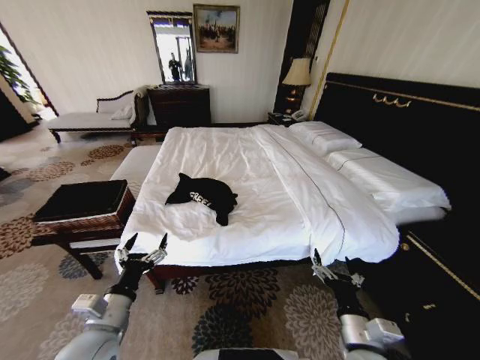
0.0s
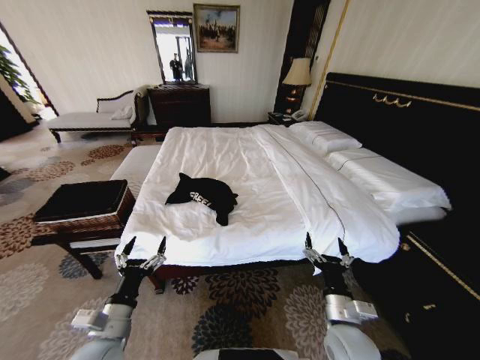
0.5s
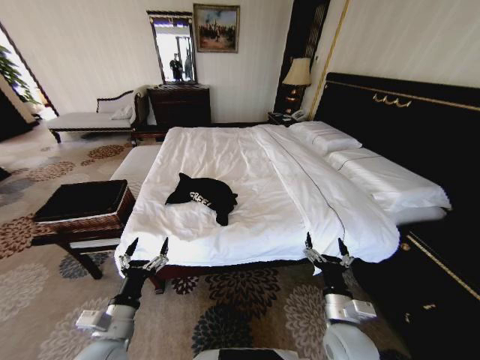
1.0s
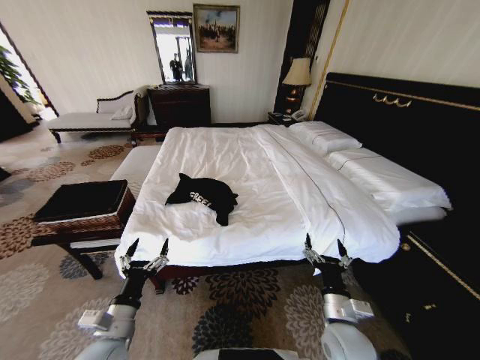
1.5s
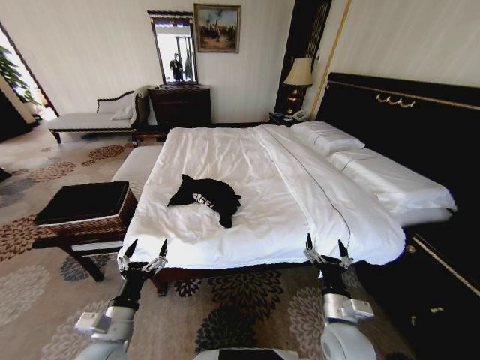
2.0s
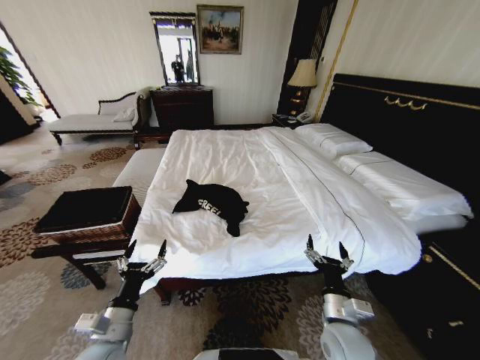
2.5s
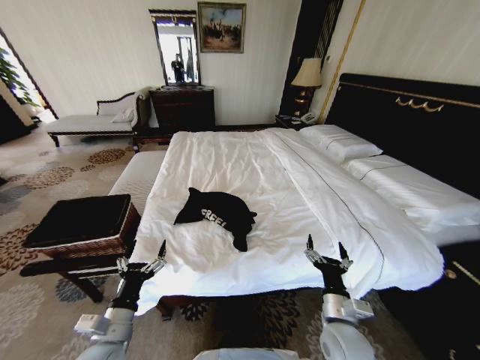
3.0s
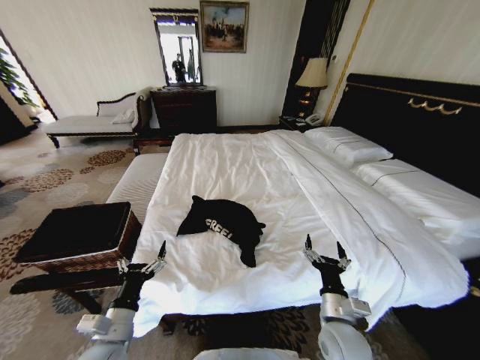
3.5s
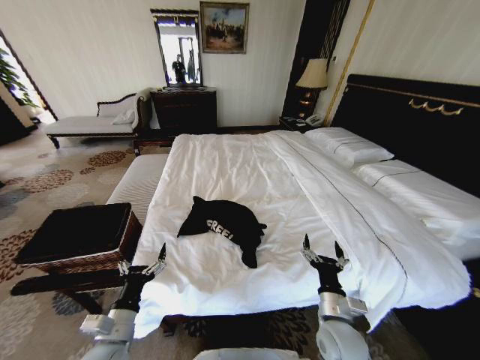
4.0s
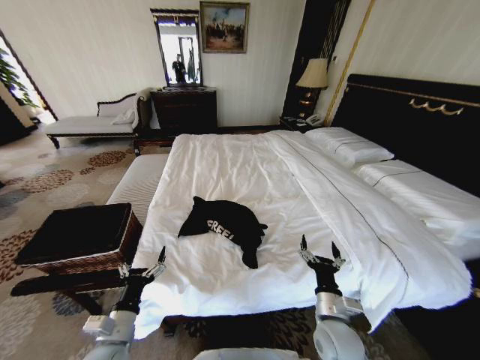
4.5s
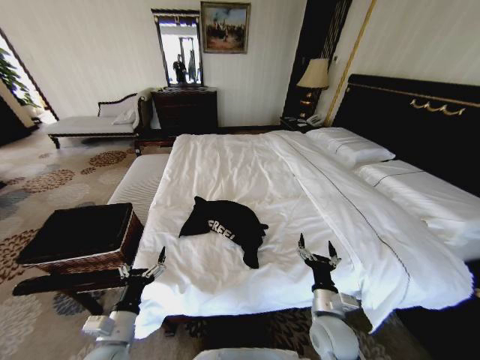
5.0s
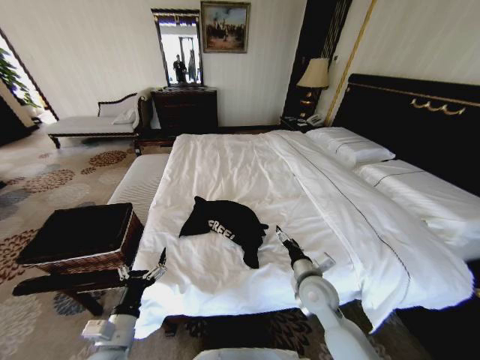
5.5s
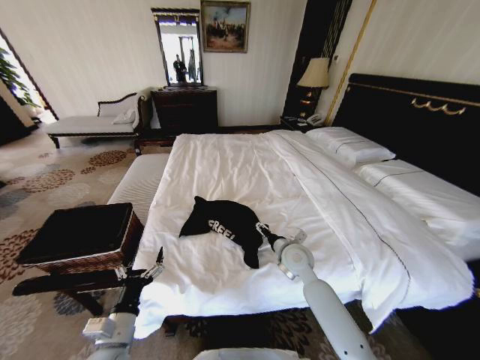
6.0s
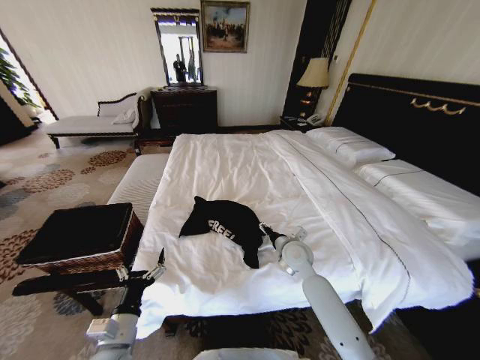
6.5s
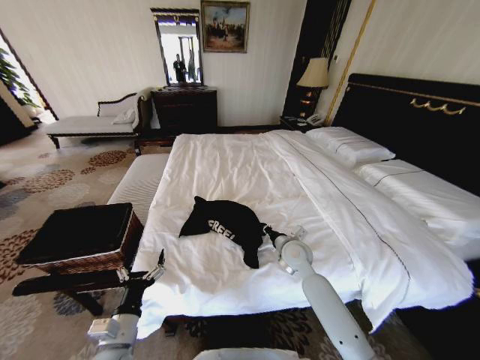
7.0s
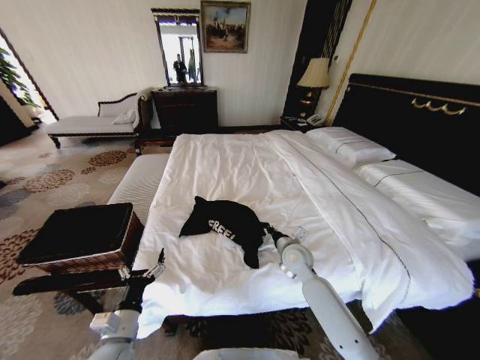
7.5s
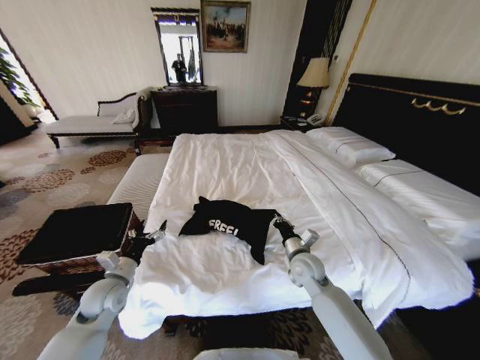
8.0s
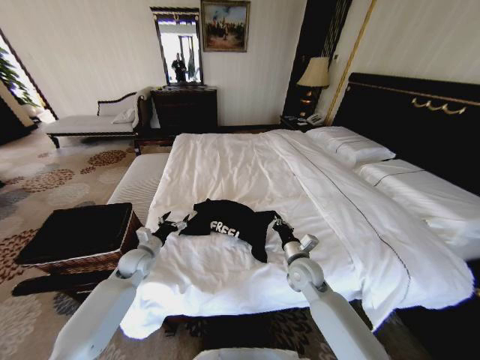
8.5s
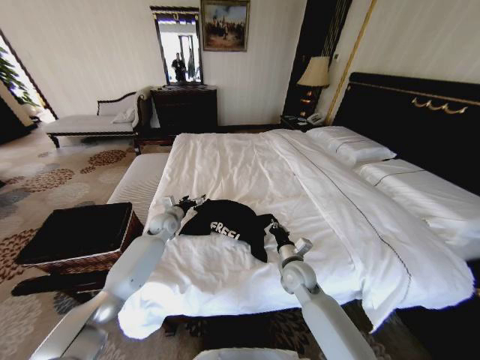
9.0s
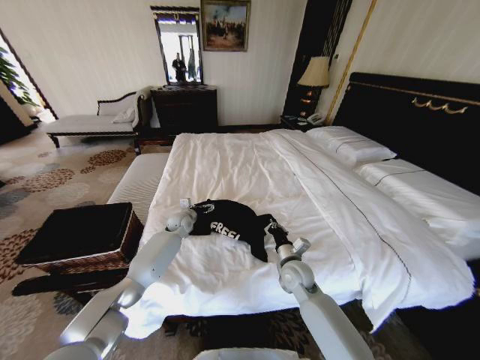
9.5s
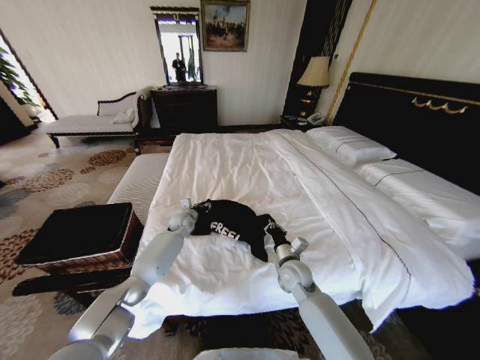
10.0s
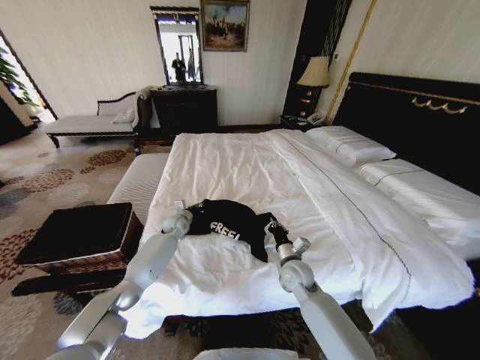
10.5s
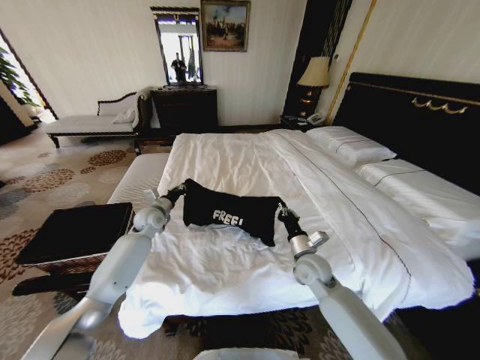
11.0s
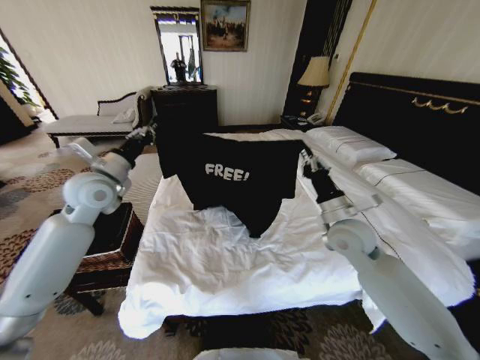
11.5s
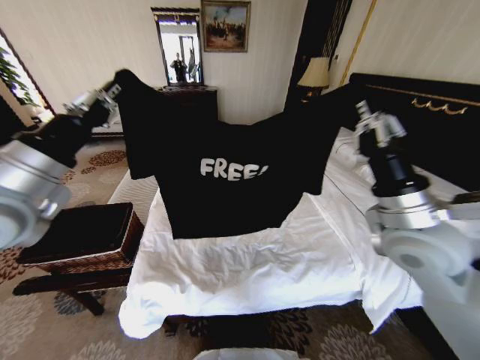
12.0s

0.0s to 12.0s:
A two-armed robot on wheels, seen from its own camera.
Task of the whole recording: Fold the clothes on the bed and place them into the basket.
4.0s to 6.0s: The right gripper is displaced forward by roughly 20 cm.
6.0s to 8.0s: The left gripper goes roughly 15 cm forward and to the left; the right gripper closes up.
8.0s to 10.0s: The left gripper shifts about 30 cm forward and to the right, and closes its fingers.
10.0s to 12.0s: The right gripper heads upward, covering some 30 cm; the left gripper shifts about 50 cm upward and backward, and closes.

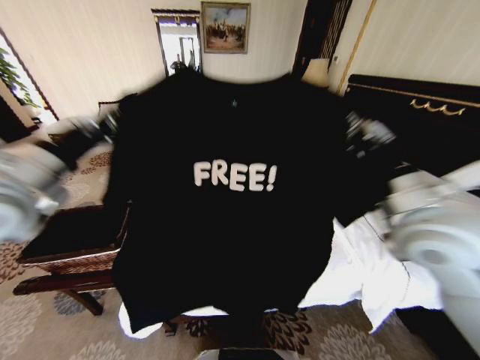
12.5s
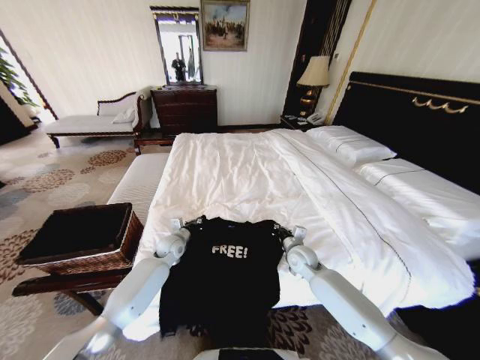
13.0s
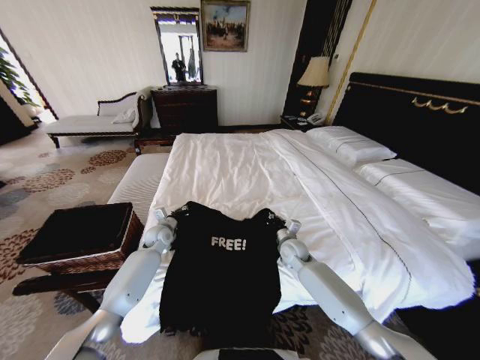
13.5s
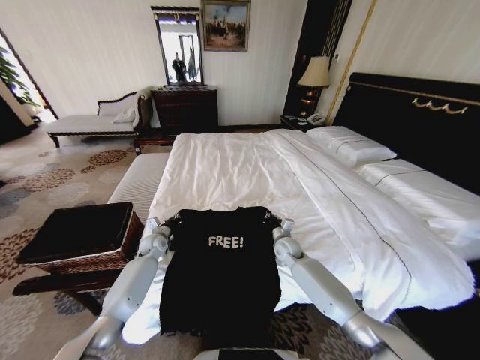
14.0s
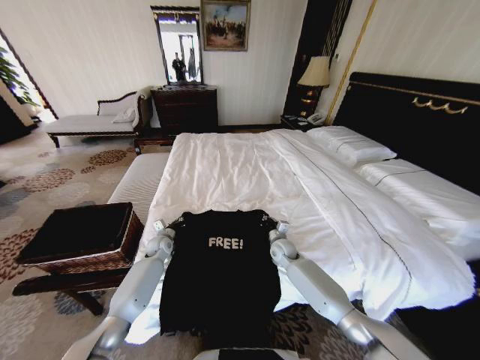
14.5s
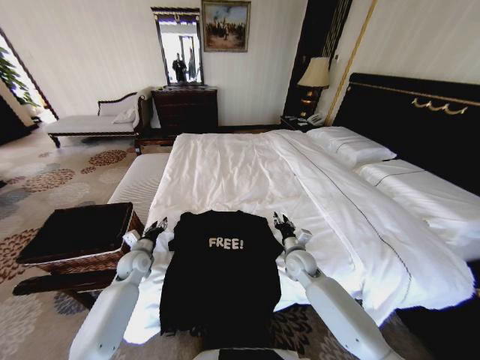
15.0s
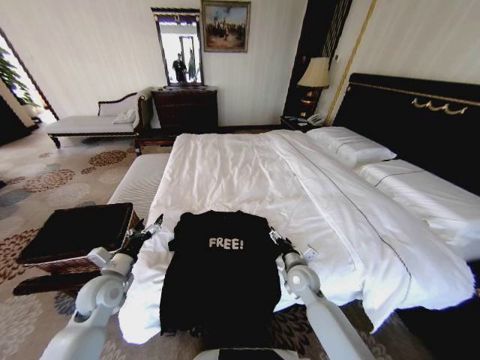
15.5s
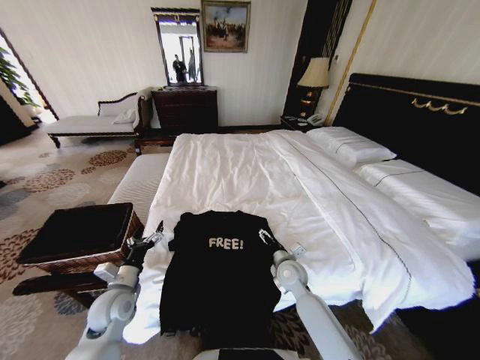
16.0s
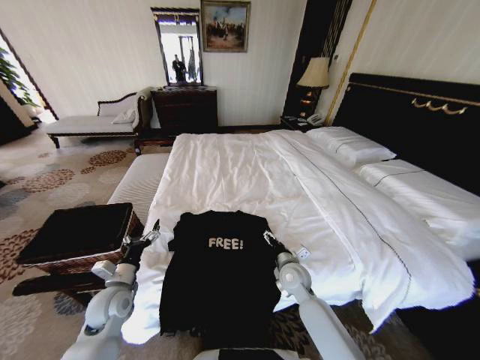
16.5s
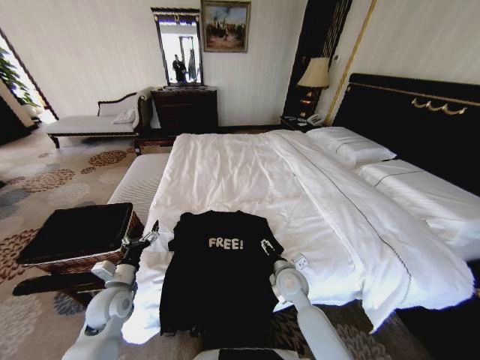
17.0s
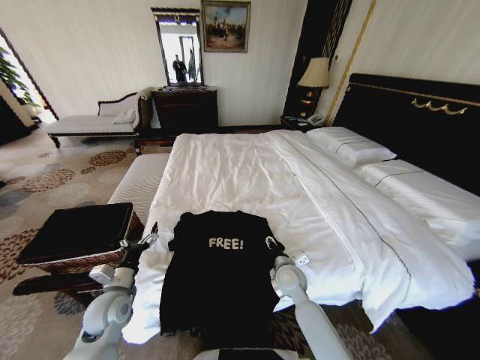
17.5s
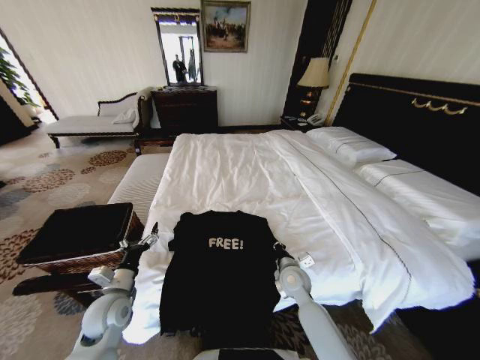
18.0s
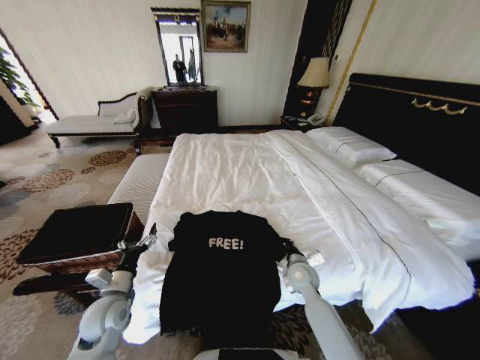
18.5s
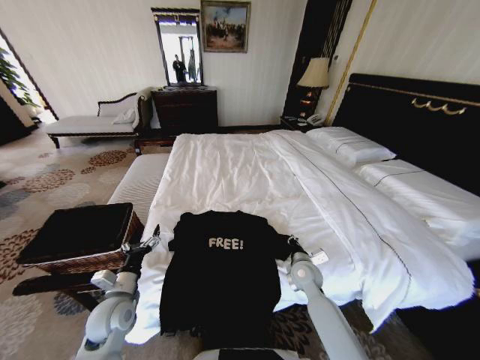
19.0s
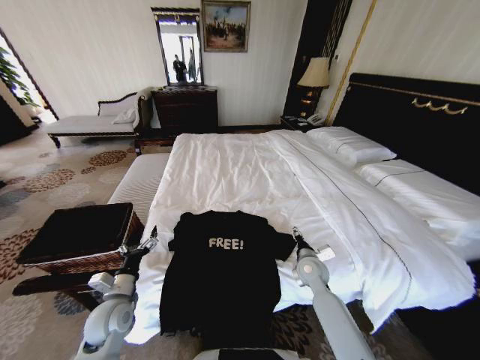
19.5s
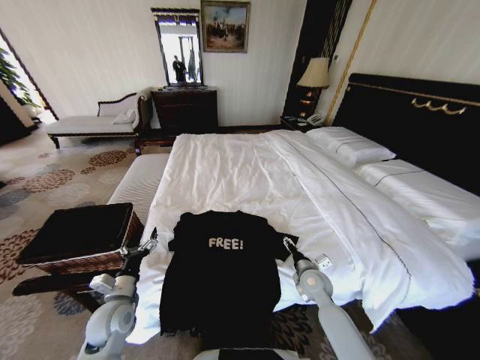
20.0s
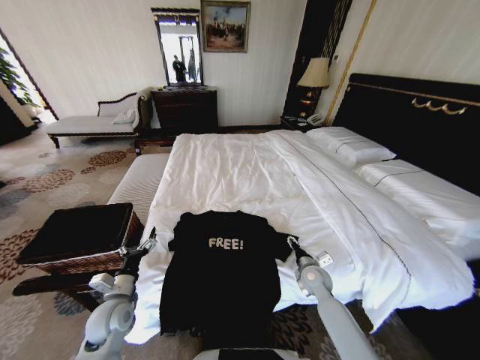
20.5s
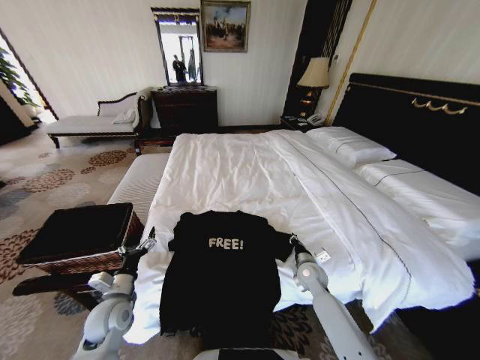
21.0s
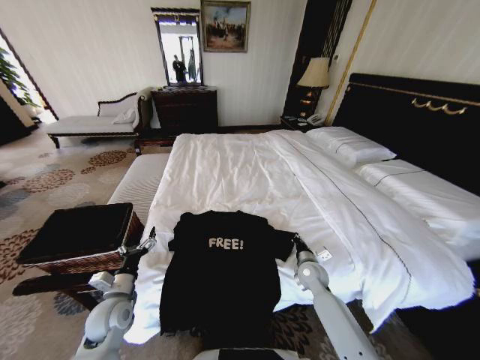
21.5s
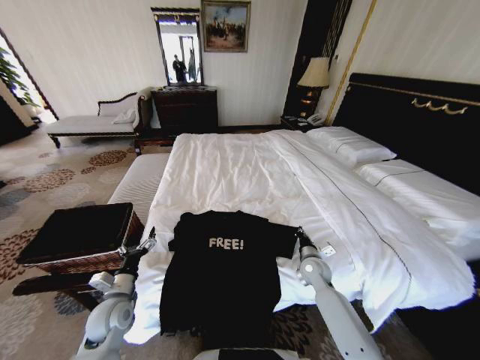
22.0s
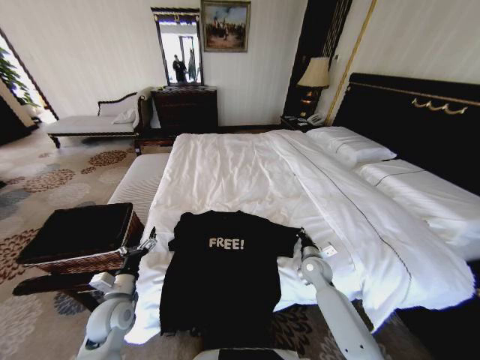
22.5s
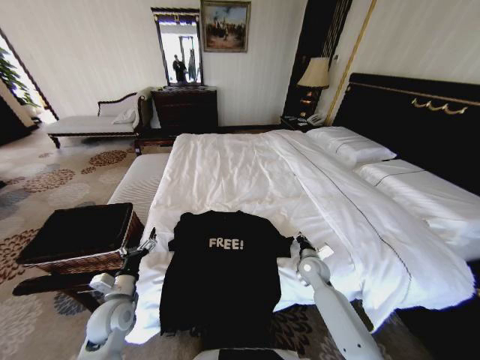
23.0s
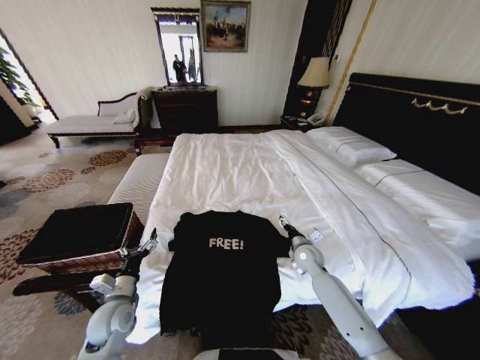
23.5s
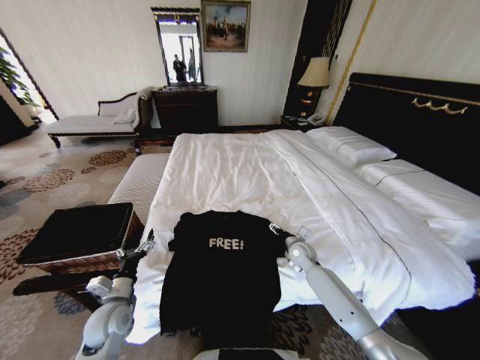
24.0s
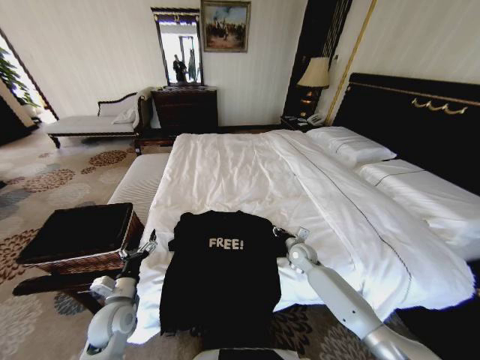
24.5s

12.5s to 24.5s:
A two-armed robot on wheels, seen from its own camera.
Task of the whole recording: Fold the clothes on the bed and place them into the basket.
12.5s to 14.5s: The two grippers go approximately 40 cm downward and forward.
14.5s to 16.5s: The right gripper goes approximately 10 cm backward, and opens up; the left gripper heads backward, covering roughly 20 cm, and opens up.
16.5s to 18.5s: The right gripper closes.
18.5s to 20.5s: The right gripper is displaced to the right by about 5 cm, and opens its fingers.
20.5s to 22.5s: The right gripper closes its fingers.
22.5s to 24.5s: The right gripper heads forward, covering approximately 5 cm, and opens.

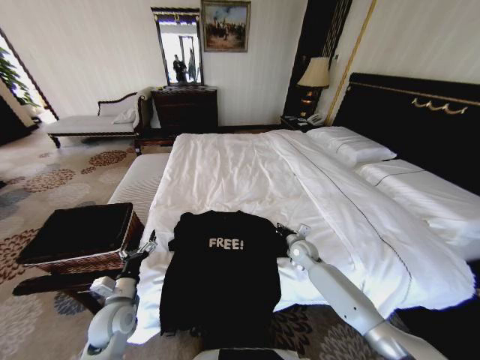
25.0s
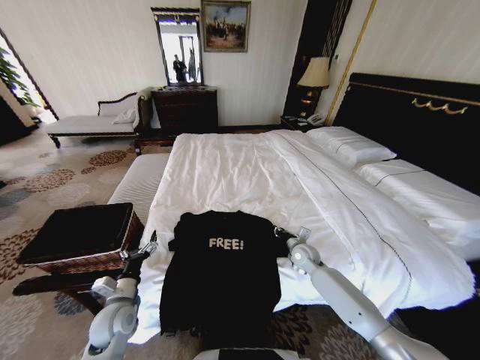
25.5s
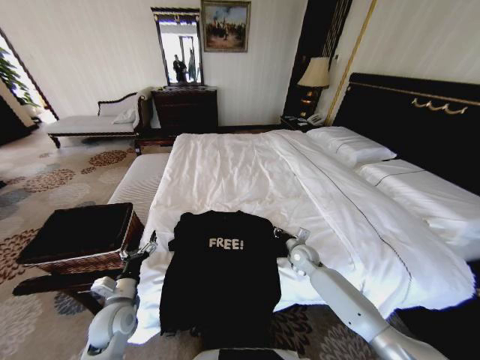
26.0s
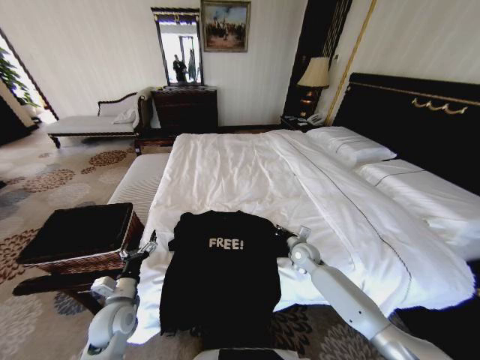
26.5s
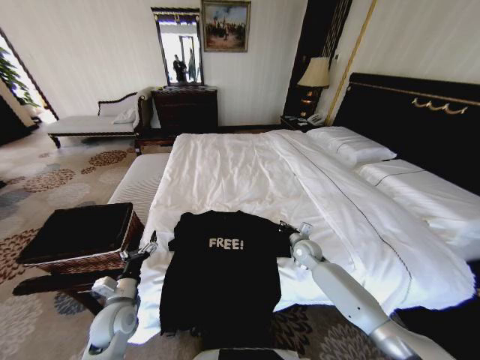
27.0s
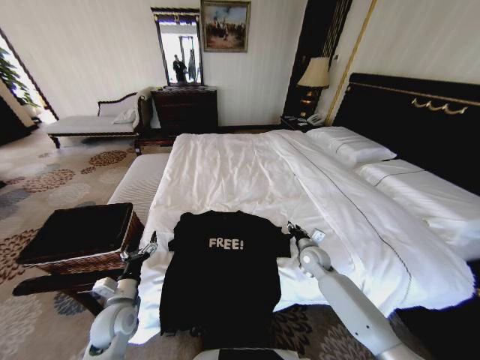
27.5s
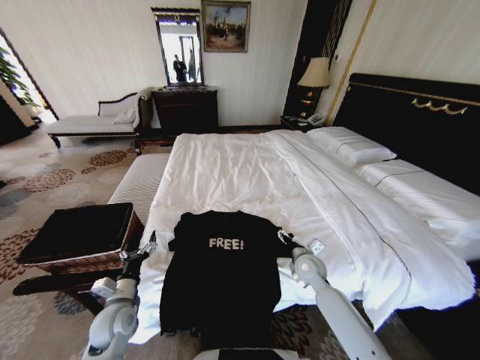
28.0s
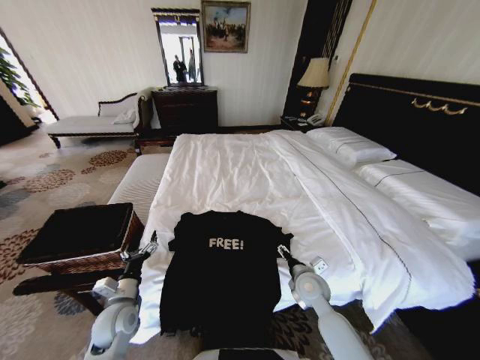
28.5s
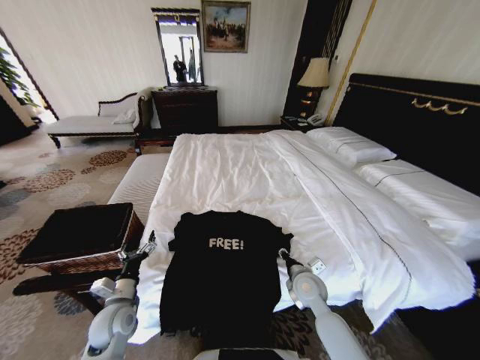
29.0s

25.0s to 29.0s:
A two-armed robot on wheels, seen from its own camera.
Task of the whole recording: Fold the clothes on the bed and place them into the basket.
25.0s to 27.0s: The grippers stay close to where they were, moving slightly.
27.0s to 29.0s: The right gripper is displaced backward and to the left by about 15 cm, and opens.
